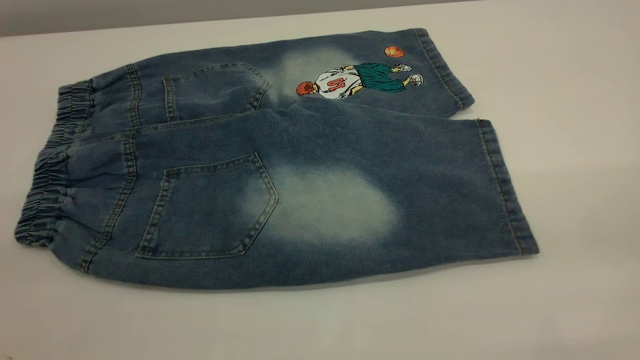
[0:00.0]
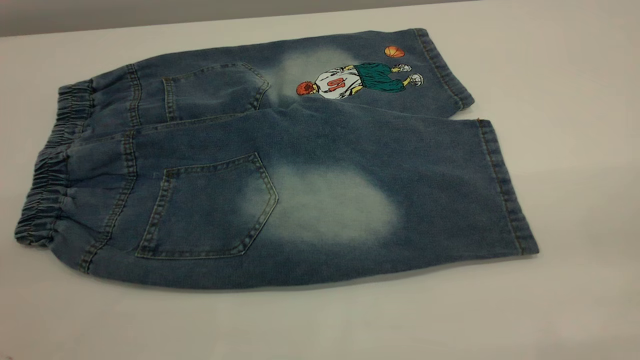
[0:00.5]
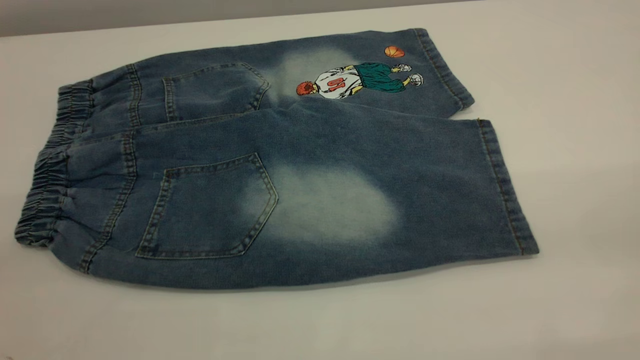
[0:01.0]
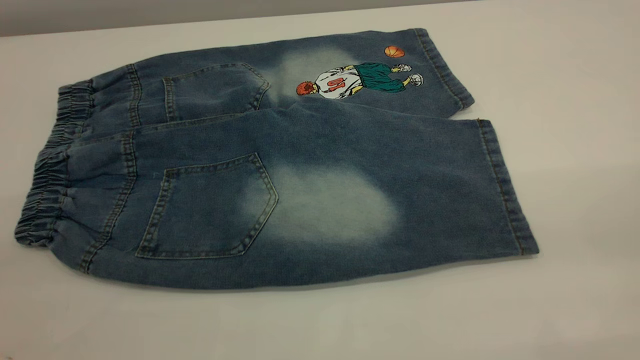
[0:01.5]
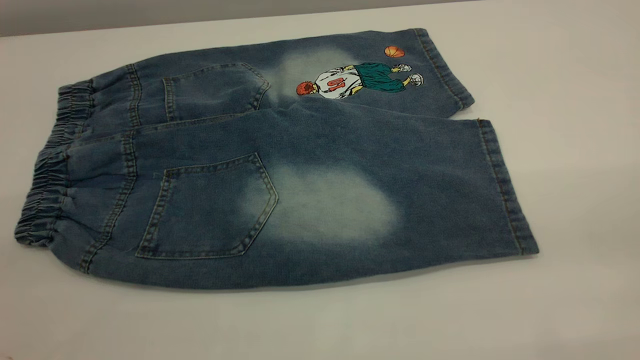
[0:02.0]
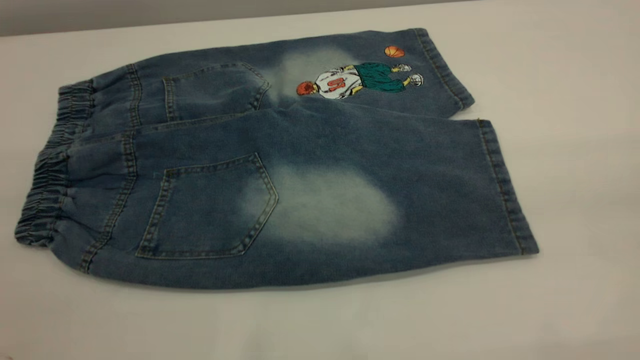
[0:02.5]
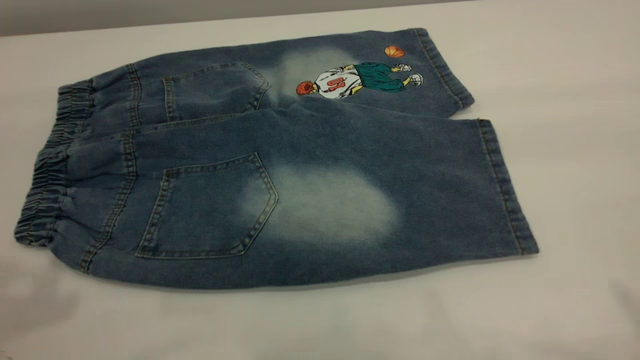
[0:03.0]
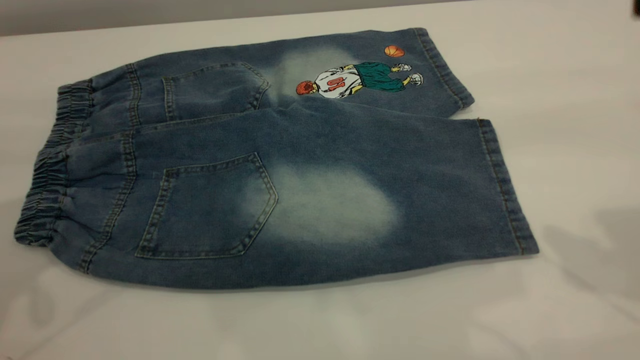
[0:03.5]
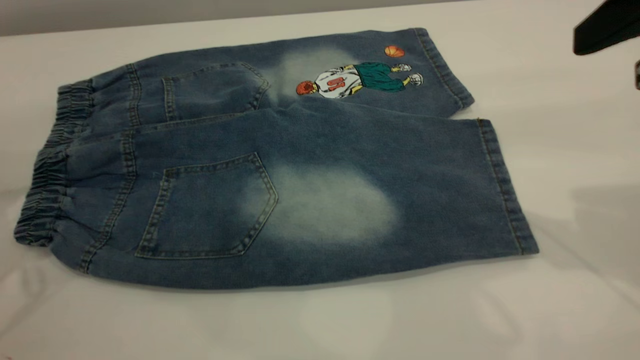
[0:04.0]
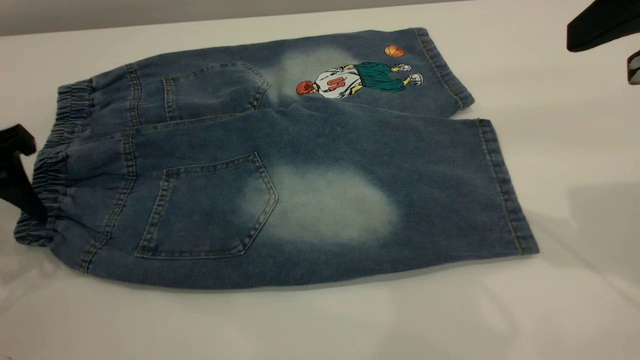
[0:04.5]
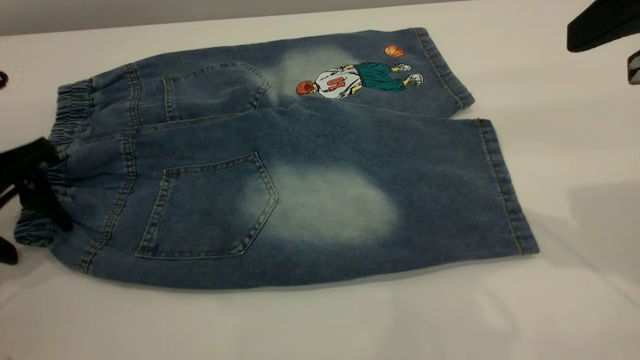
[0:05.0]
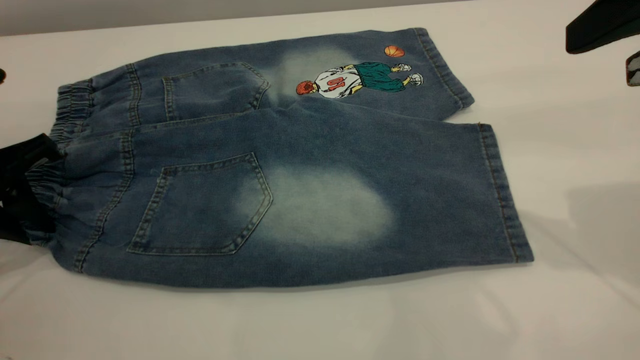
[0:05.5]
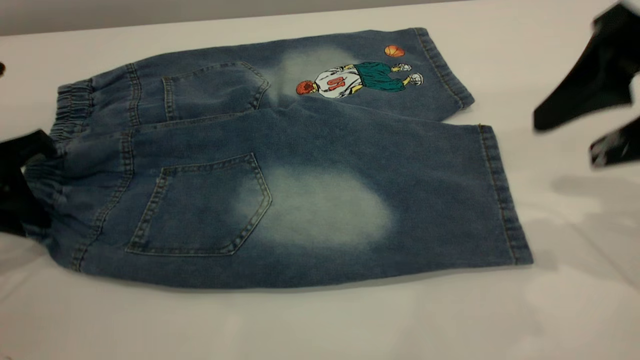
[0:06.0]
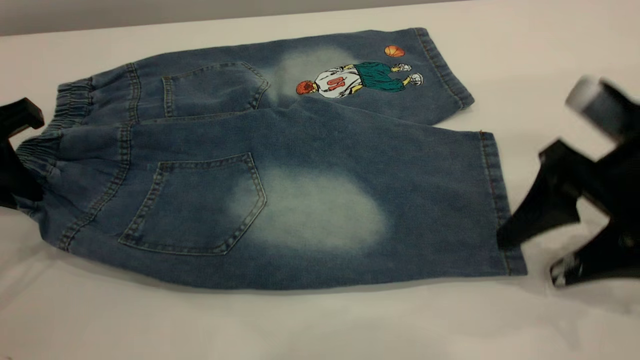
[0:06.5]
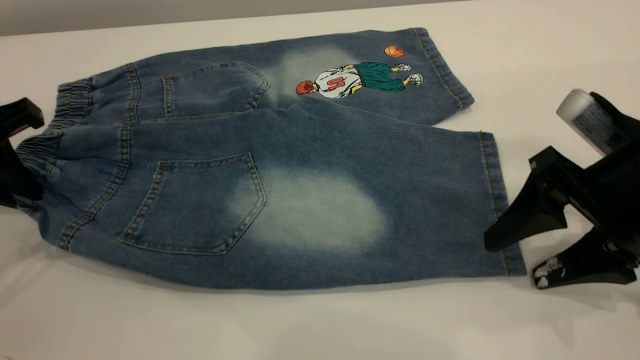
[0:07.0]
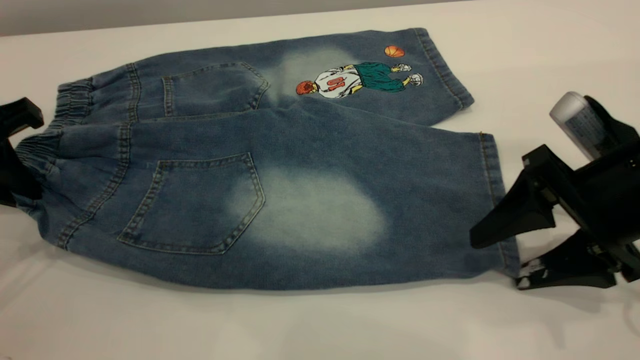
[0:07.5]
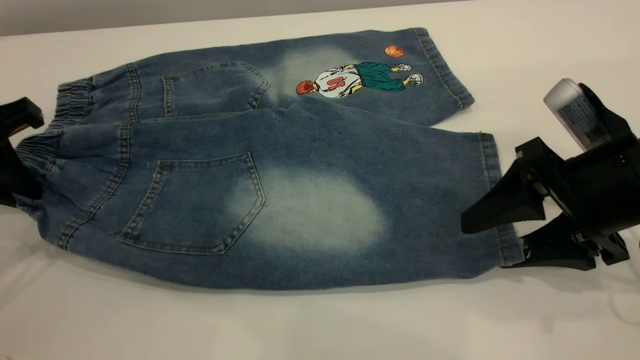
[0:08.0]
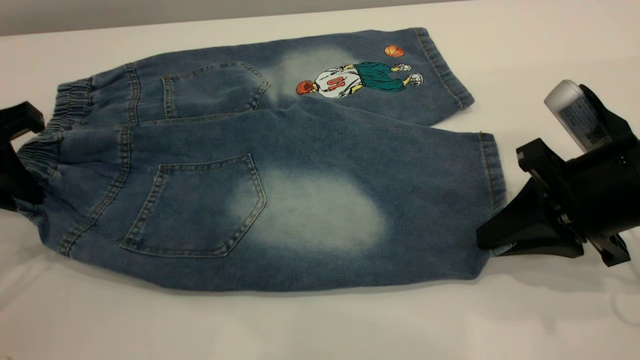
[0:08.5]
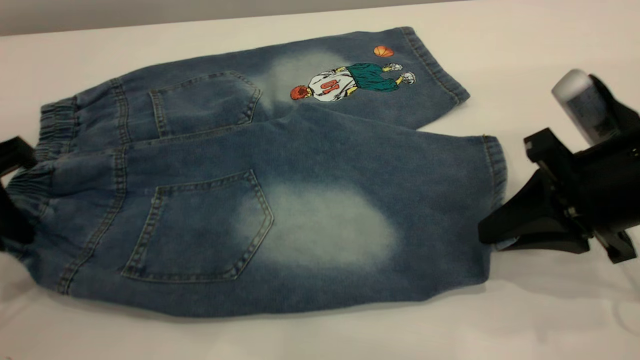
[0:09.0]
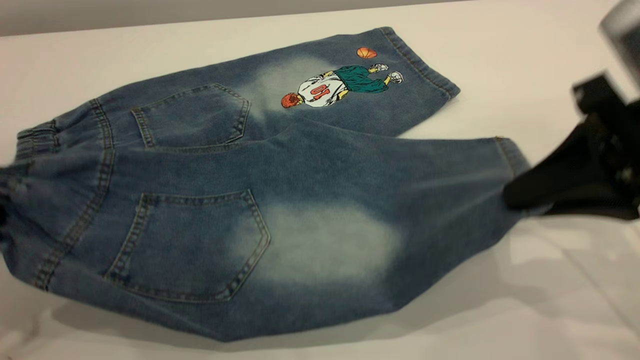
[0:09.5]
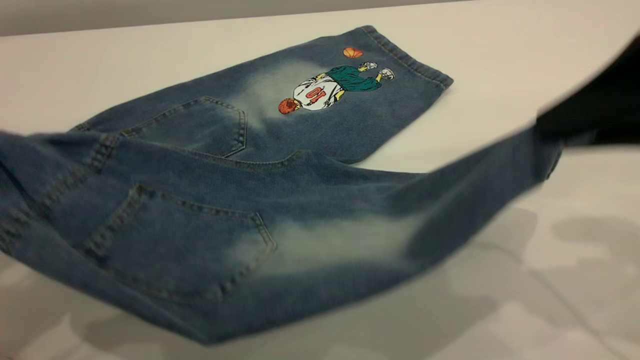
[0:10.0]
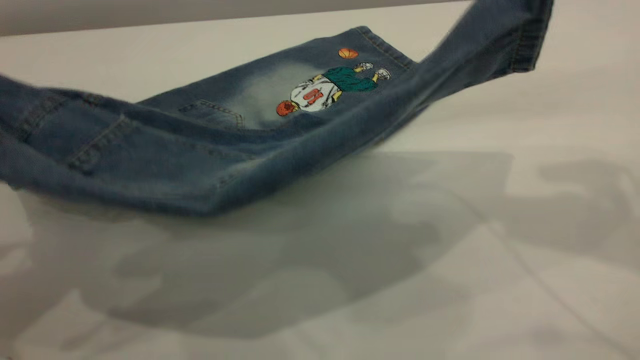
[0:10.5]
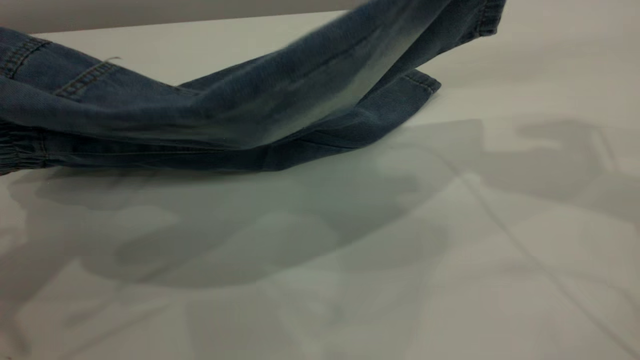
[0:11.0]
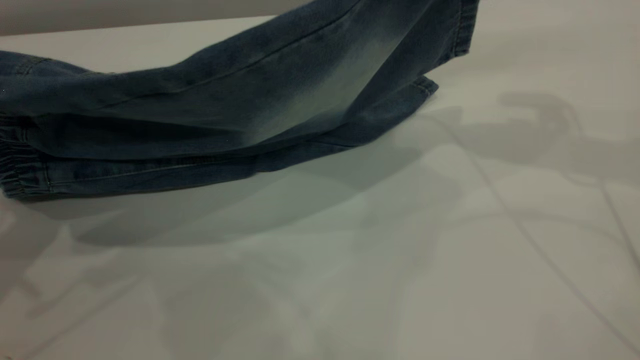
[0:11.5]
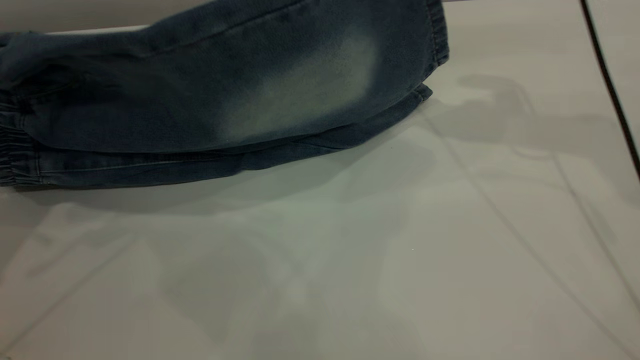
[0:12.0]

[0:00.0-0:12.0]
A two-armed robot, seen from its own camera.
0:00.0 to 0:02.0: The two grippers keep their place.
0:02.0 to 0:04.0: The right gripper travels forward by some 25 cm.
0:04.0 to 0:06.0: Both grippers move downward, about 5 cm. The left gripper closes up.
0:06.0 to 0:08.0: The right gripper travels downward by some 10 cm.
0:08.0 to 0:10.0: The right gripper moves upward, roughly 15 cm, and closes. Meanwhile the left gripper moves backward and upward, approximately 15 cm.
0:10.0 to 0:12.0: The right gripper goes some 20 cm forward. The left gripper moves forward, approximately 10 cm.

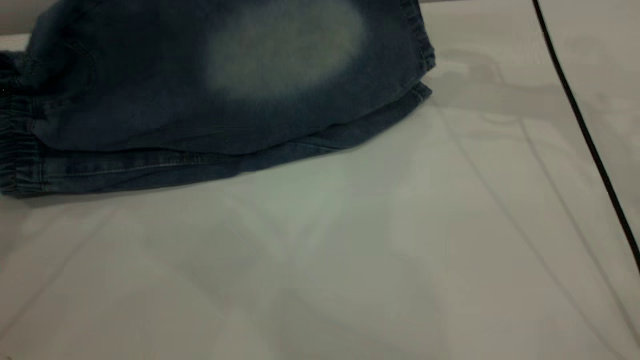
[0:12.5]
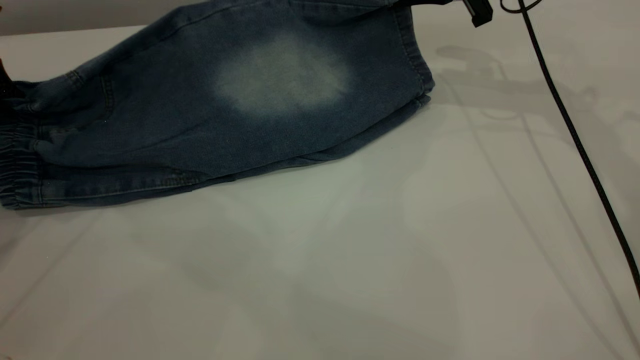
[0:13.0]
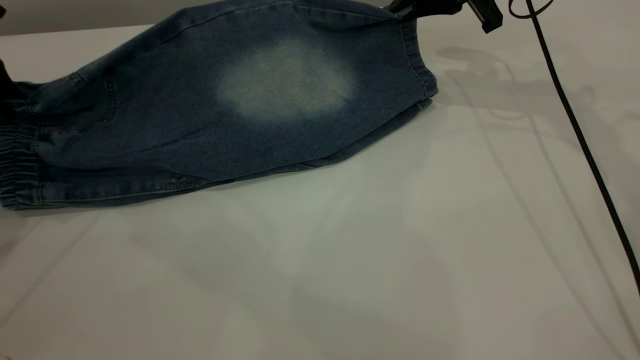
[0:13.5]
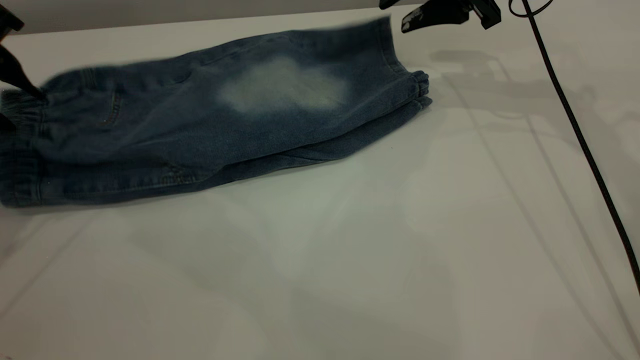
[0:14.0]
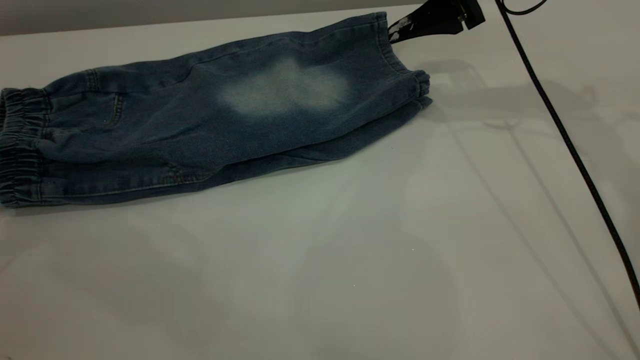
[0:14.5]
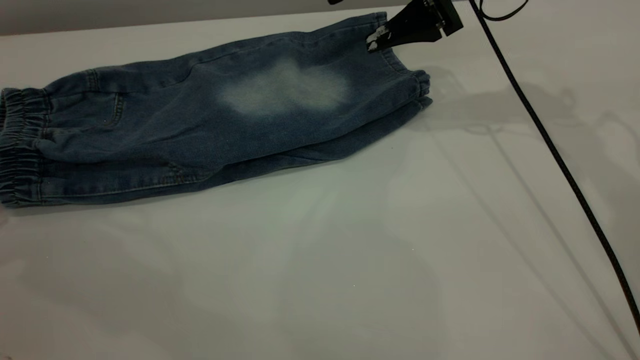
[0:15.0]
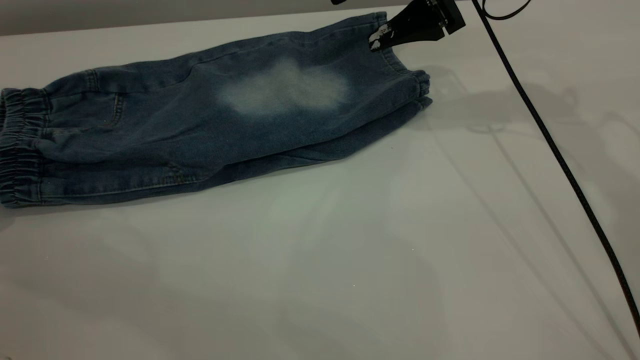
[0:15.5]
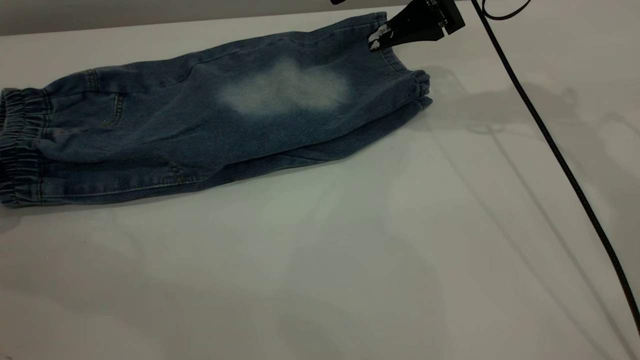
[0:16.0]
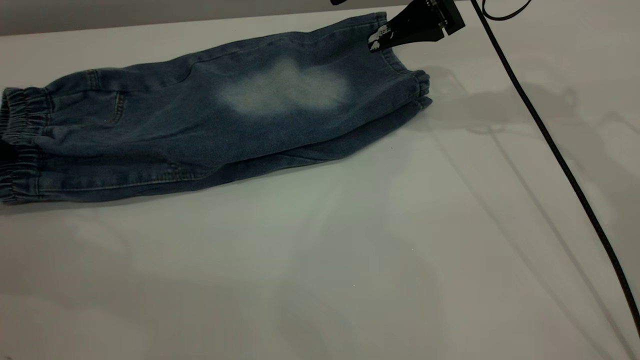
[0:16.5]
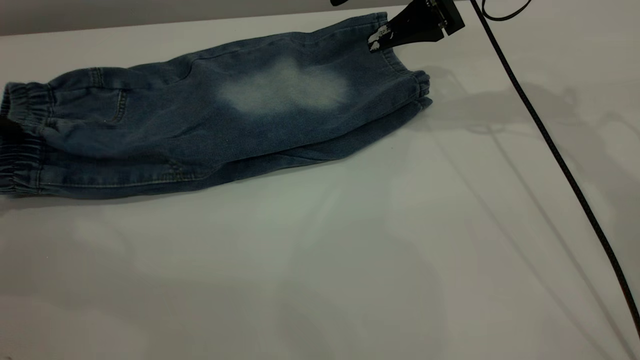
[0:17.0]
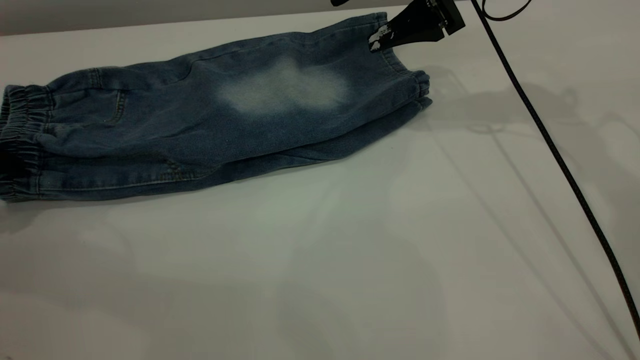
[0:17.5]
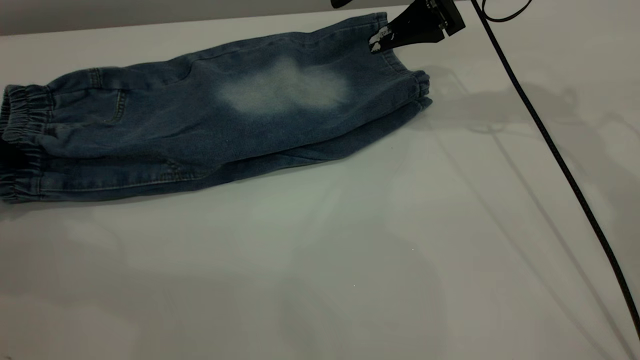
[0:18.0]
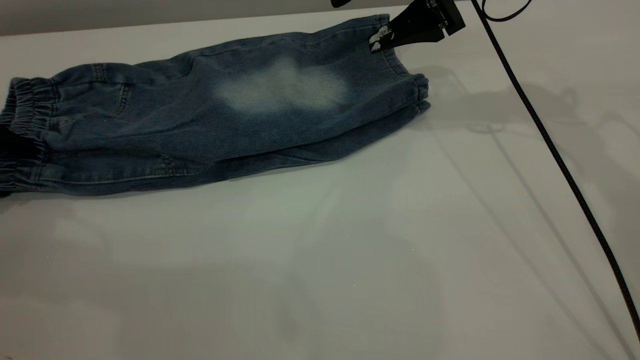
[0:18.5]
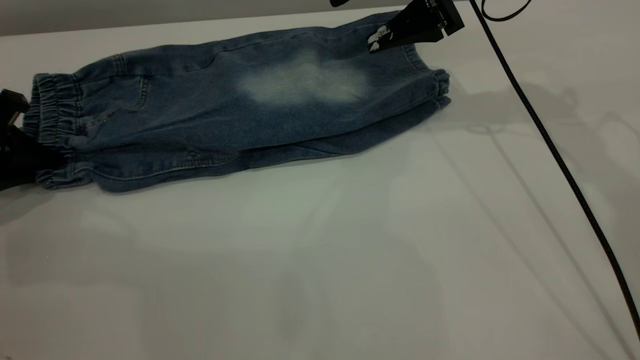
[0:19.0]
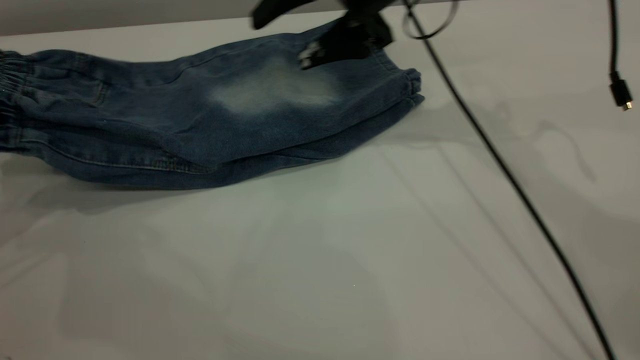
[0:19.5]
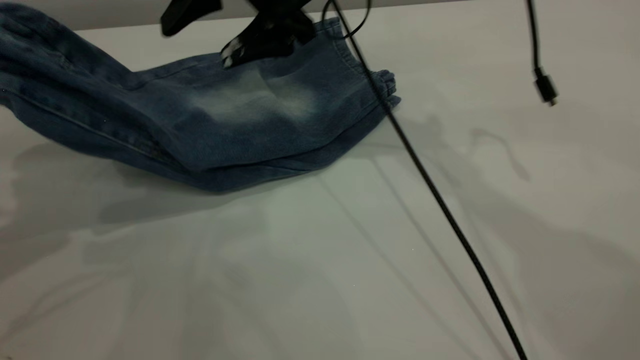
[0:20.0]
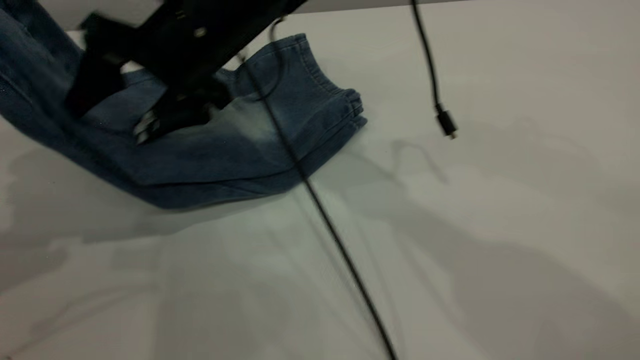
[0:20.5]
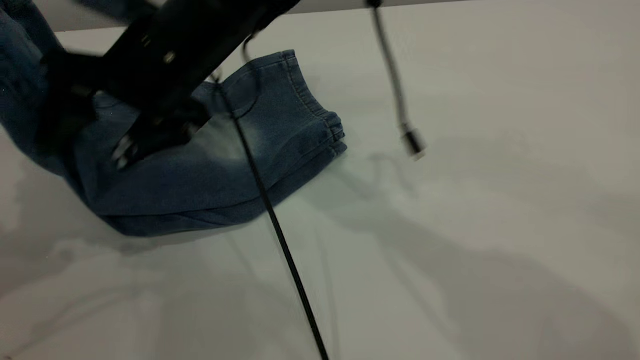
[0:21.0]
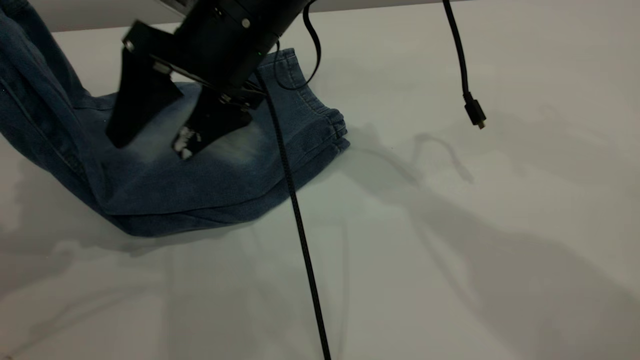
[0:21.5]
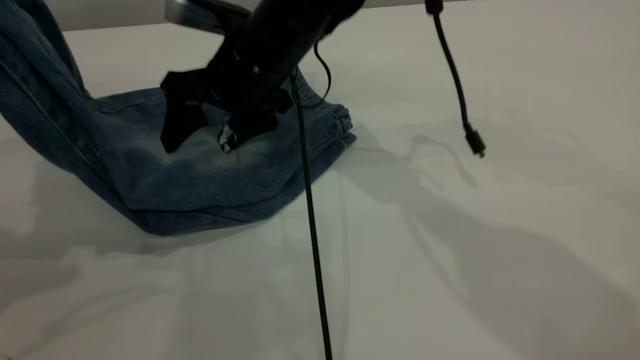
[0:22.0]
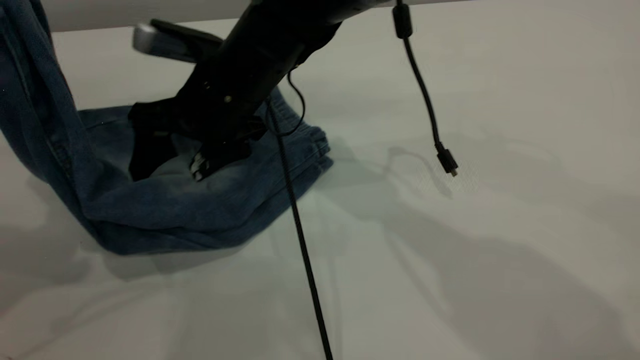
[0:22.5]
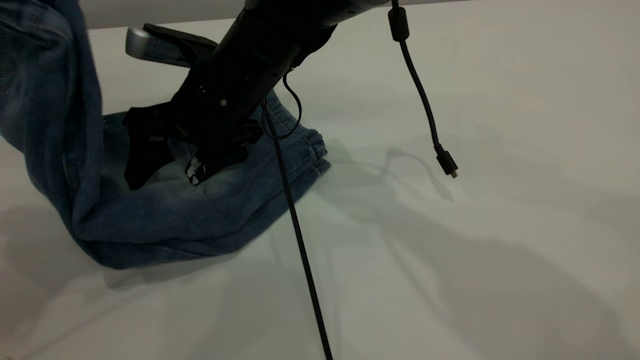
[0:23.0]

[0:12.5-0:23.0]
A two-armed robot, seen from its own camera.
Step, 0:12.5 to 0:15.0: Fold the bottom of the pants upward.
0:12.5 to 0:14.5: The right gripper opens. The left gripper moves to the left, approximately 5 cm, and opens.
0:14.5 to 0:16.5: The left gripper shifts approximately 5 cm downward.
0:16.5 to 0:19.0: The left gripper ends up roughly 5 cm from where it was, and closes its fingers.
0:19.0 to 0:21.0: The right gripper moves to the left, approximately 25 cm. The left gripper goes some 25 cm upward and backward.
0:21.0 to 0:23.0: The left gripper travels to the right by some 5 cm. The right gripper shifts about 5 cm downward.
